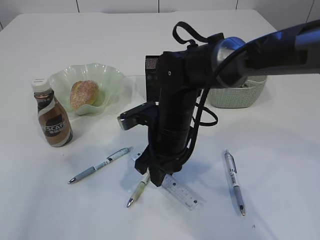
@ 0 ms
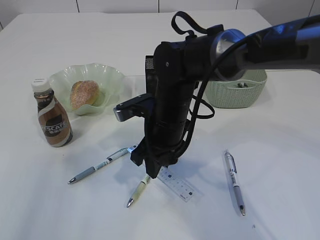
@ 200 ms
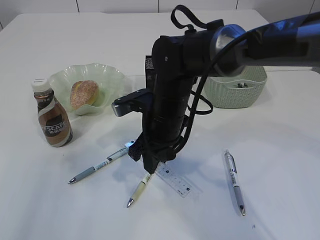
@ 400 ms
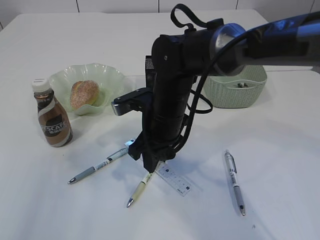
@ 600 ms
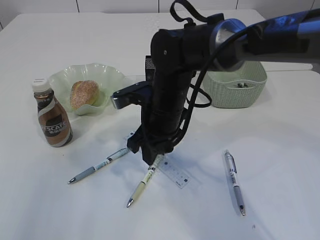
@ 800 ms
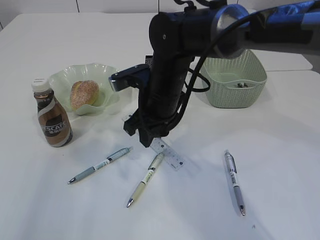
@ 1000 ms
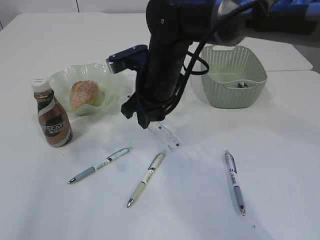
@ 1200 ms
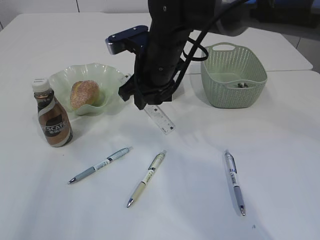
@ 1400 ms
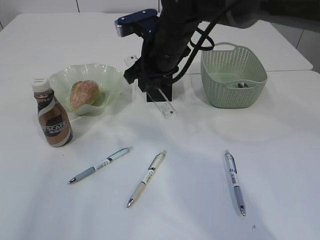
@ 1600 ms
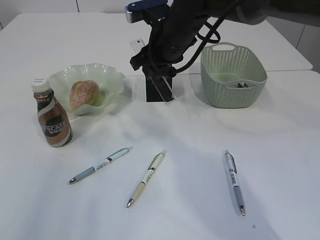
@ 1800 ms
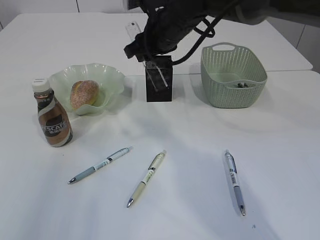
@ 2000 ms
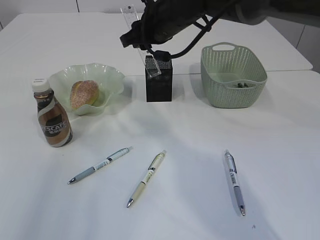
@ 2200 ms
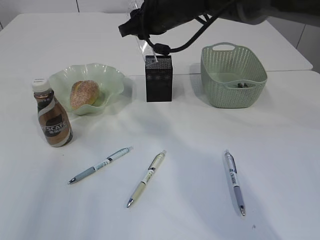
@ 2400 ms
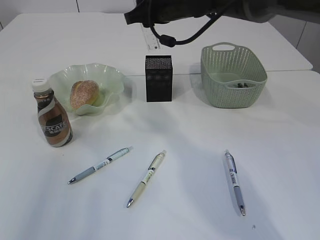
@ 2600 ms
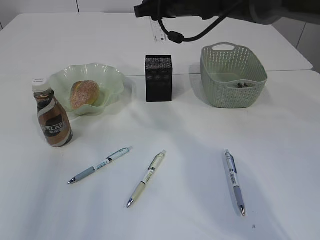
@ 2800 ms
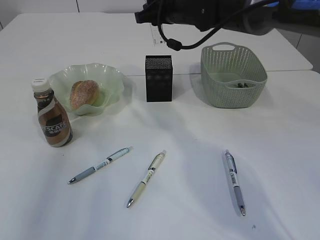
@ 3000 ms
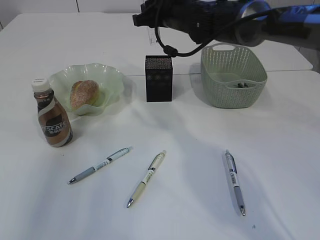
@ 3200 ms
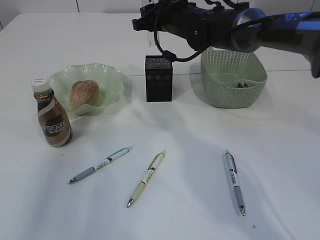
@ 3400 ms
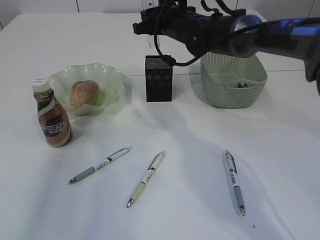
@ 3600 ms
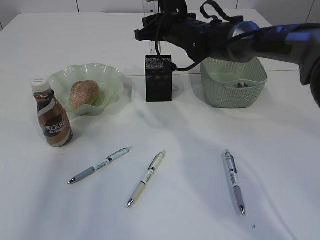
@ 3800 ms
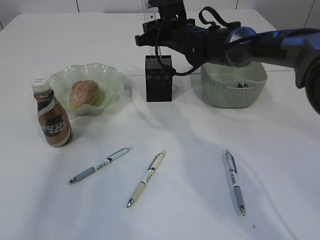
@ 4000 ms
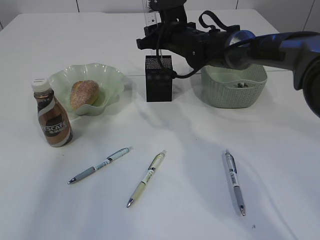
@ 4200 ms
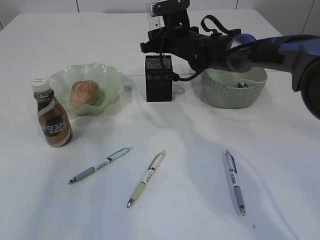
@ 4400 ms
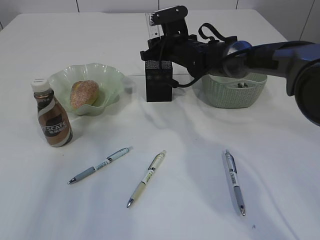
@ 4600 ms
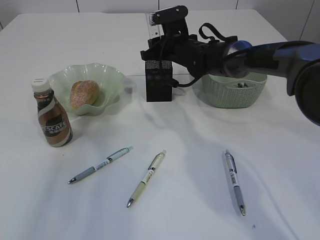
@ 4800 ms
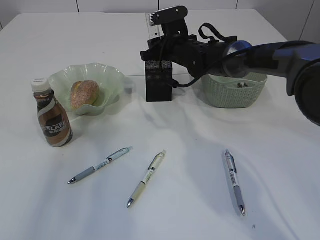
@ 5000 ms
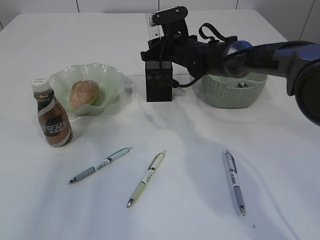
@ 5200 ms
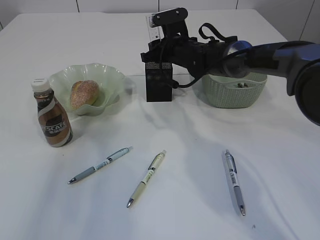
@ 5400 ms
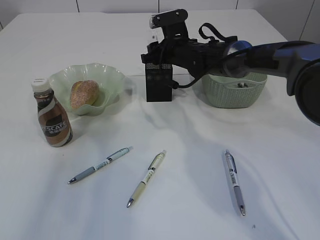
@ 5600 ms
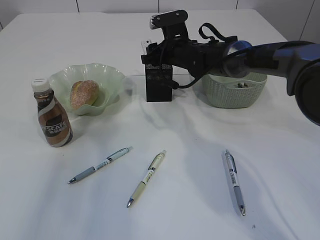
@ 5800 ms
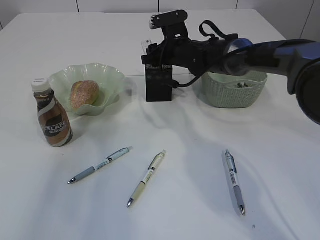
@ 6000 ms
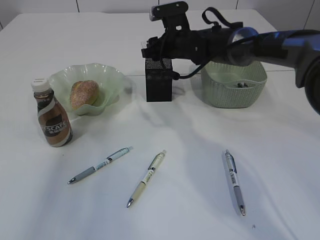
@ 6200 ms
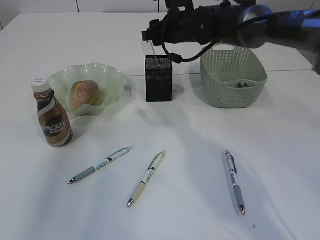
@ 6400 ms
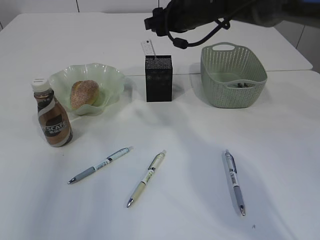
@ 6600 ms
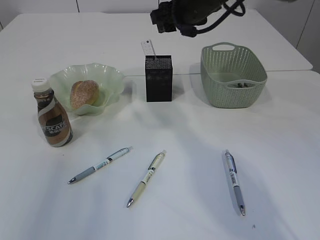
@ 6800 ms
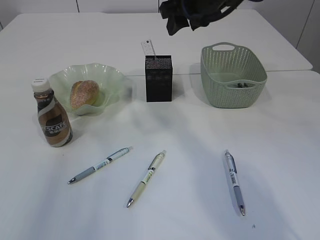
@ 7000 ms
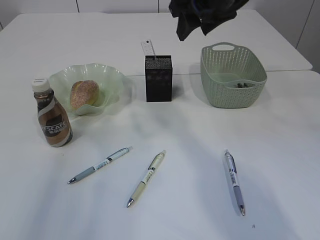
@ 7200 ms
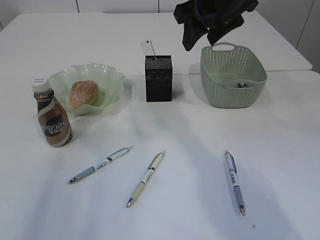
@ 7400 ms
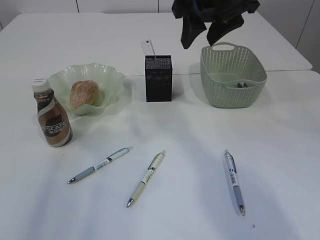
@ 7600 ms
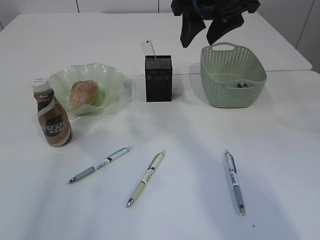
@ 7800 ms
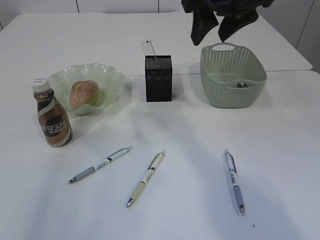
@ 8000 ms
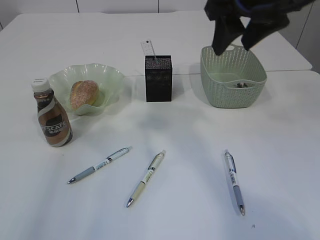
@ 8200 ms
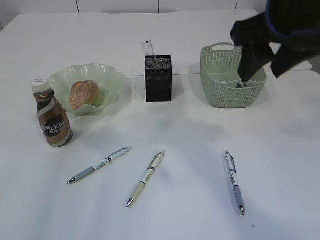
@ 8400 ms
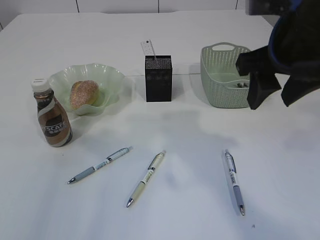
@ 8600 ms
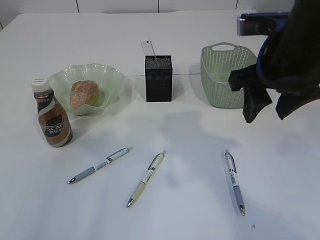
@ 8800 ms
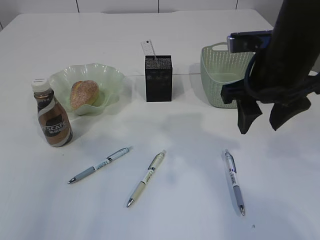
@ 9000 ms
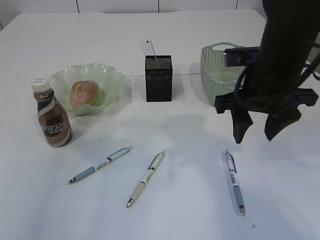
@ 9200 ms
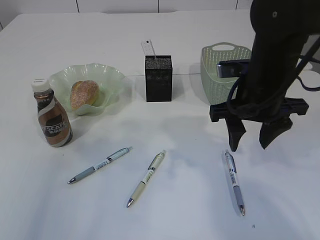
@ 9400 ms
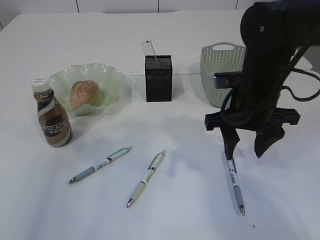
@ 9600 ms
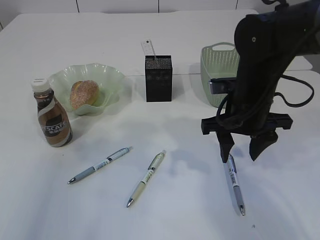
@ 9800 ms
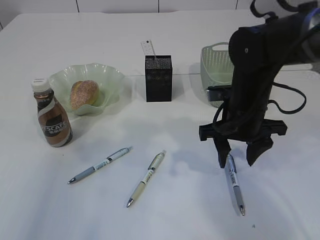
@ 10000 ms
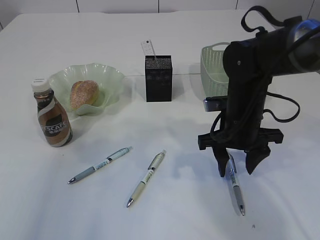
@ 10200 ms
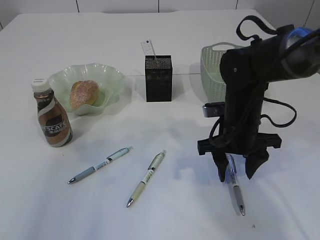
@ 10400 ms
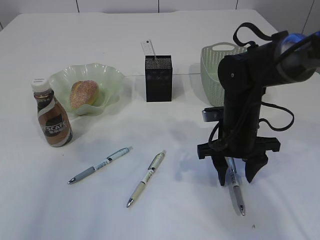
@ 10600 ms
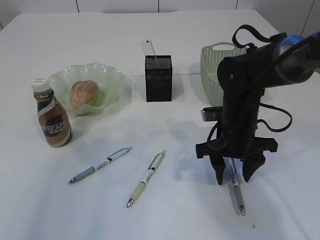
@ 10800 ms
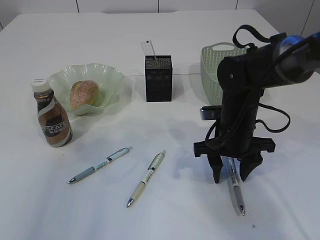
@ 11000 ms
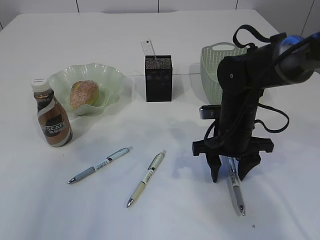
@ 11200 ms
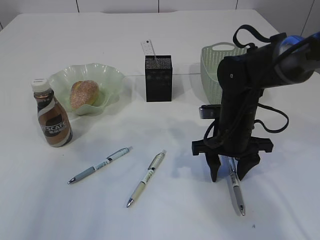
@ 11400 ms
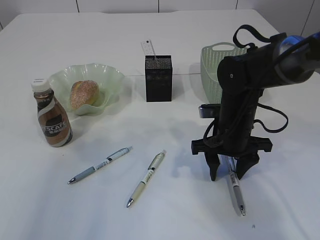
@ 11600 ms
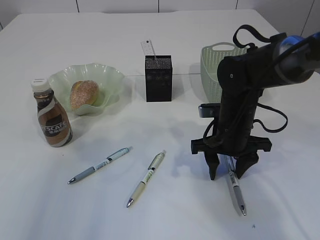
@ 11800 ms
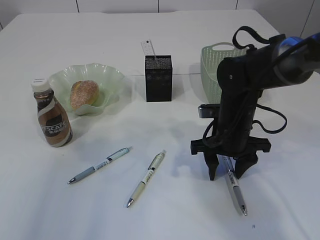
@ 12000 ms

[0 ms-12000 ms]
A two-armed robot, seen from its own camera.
Step, 1000 ms to 6600 ms: Place the ruler into the pen holder.
0 ms to 1600 ms: The right gripper moves upward and forward, about 15 cm.
1600 ms to 3000 ms: The right gripper shifts some 10 cm forward.
3000 ms to 4400 ms: The right gripper heads downward, covering approximately 10 cm.
4400 ms to 6000 ms: There are only small adjustments of the grippers.
6000 ms to 7600 ms: The right gripper goes some 20 cm upward and backward.
7600 ms to 9000 ms: The right gripper moves backward and downward, roughly 10 cm.
9000 ms to 10400 ms: The right gripper heads downward, covering approximately 15 cm.
10400 ms to 12000 ms: The grippers move only a little.

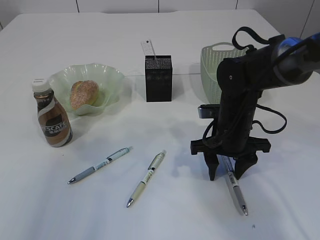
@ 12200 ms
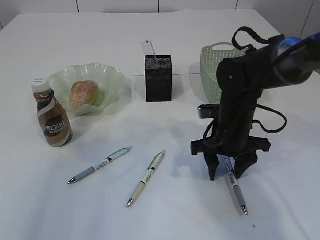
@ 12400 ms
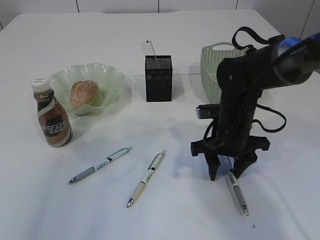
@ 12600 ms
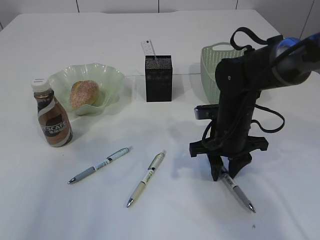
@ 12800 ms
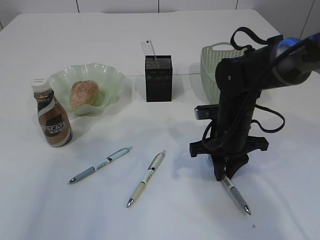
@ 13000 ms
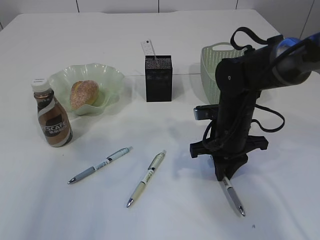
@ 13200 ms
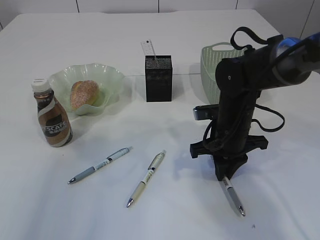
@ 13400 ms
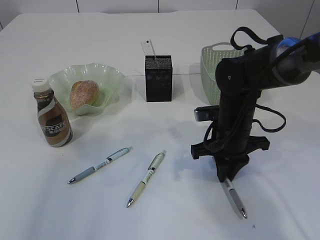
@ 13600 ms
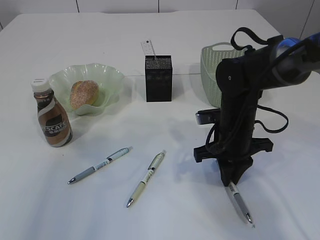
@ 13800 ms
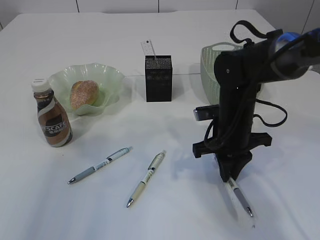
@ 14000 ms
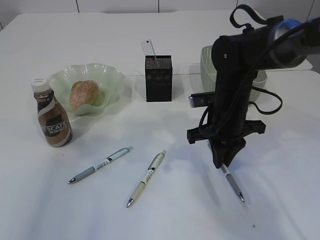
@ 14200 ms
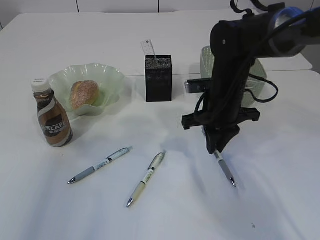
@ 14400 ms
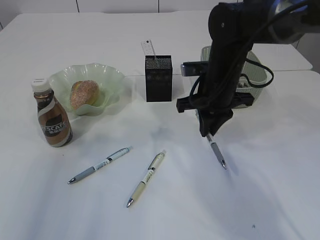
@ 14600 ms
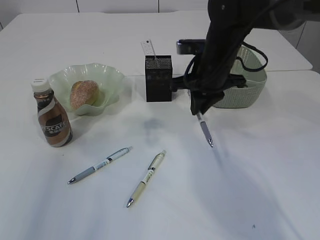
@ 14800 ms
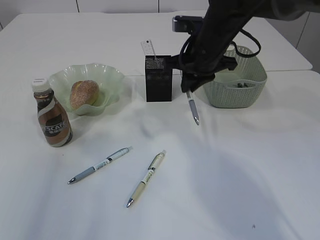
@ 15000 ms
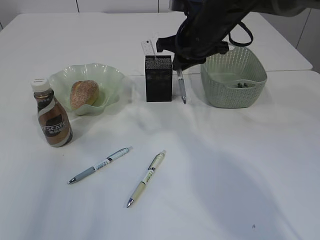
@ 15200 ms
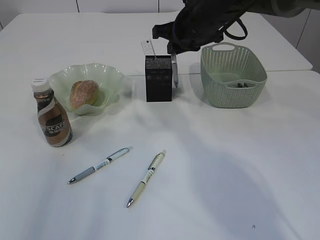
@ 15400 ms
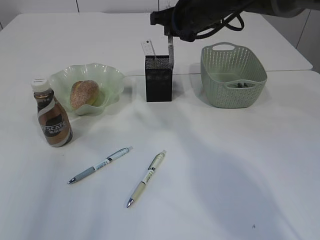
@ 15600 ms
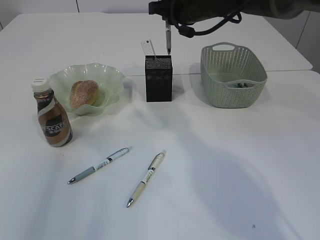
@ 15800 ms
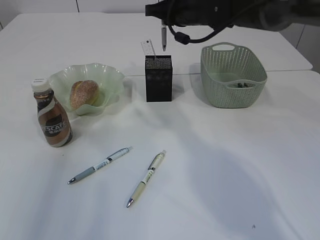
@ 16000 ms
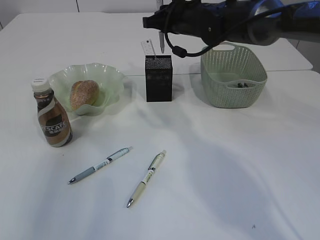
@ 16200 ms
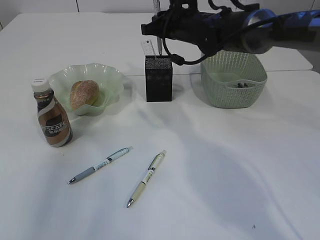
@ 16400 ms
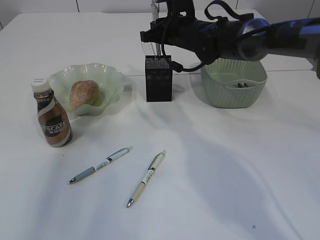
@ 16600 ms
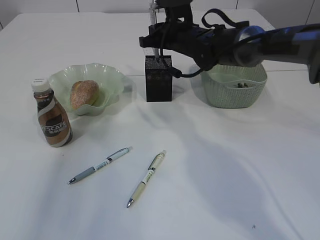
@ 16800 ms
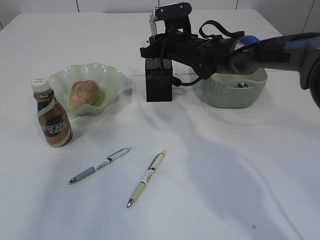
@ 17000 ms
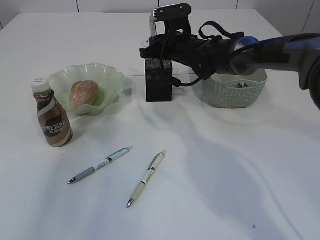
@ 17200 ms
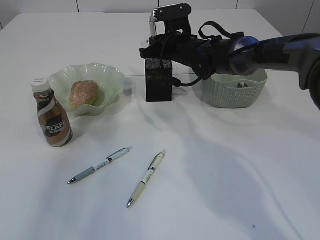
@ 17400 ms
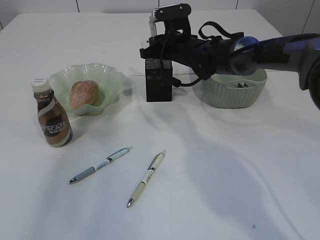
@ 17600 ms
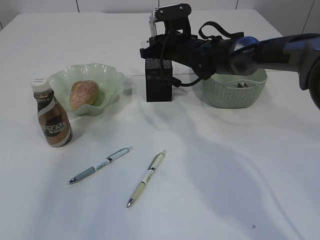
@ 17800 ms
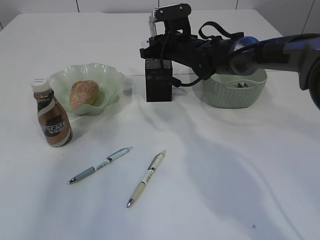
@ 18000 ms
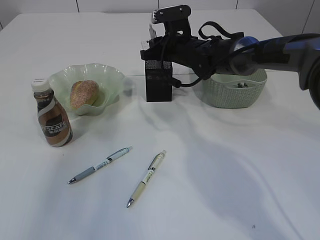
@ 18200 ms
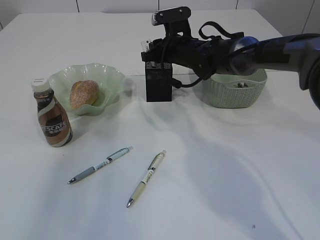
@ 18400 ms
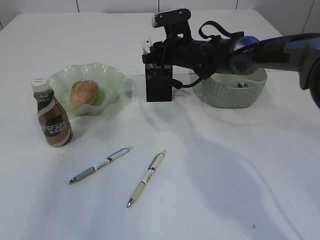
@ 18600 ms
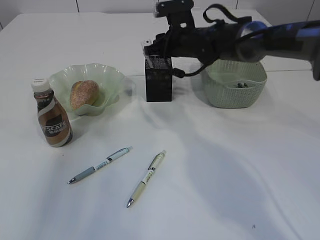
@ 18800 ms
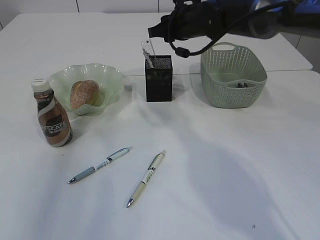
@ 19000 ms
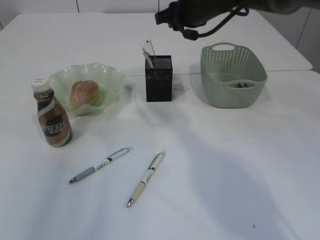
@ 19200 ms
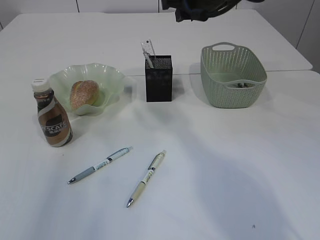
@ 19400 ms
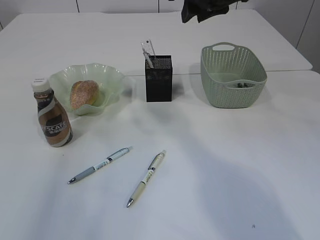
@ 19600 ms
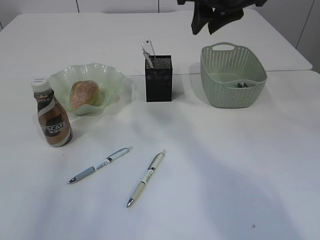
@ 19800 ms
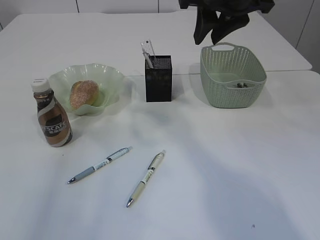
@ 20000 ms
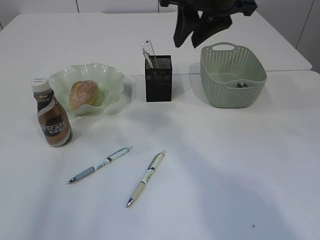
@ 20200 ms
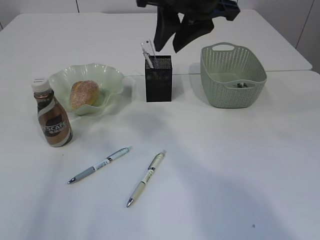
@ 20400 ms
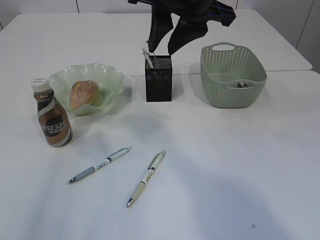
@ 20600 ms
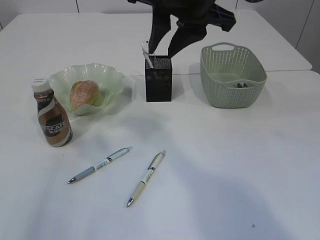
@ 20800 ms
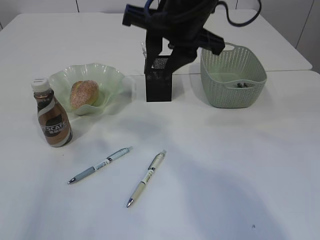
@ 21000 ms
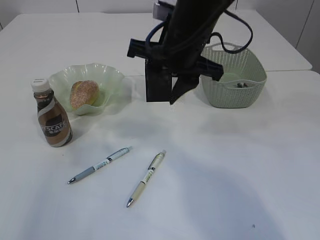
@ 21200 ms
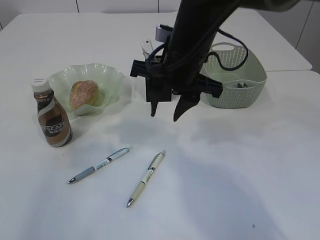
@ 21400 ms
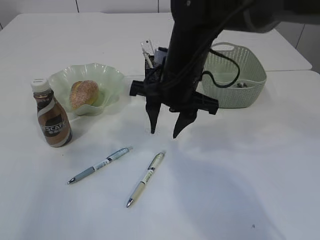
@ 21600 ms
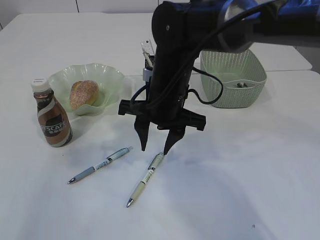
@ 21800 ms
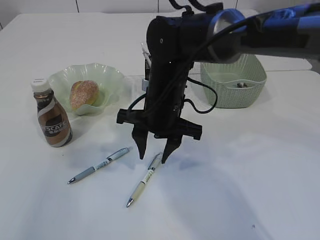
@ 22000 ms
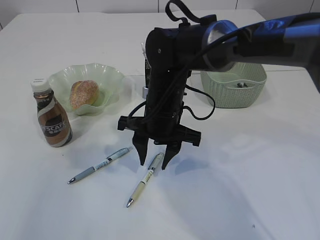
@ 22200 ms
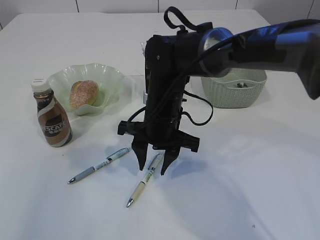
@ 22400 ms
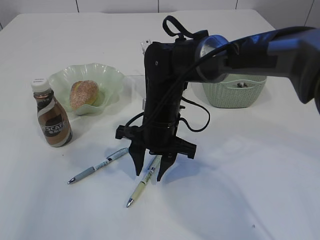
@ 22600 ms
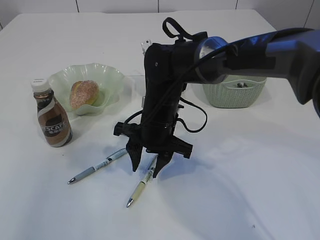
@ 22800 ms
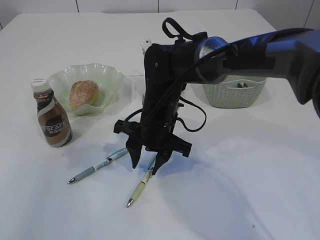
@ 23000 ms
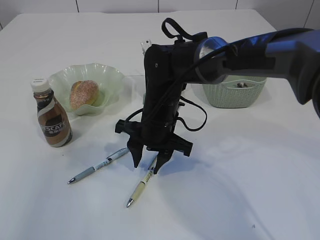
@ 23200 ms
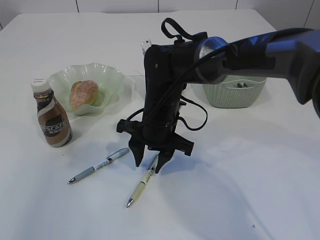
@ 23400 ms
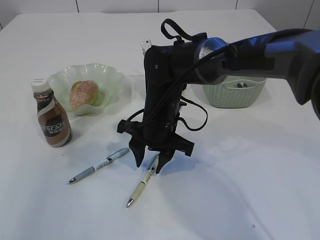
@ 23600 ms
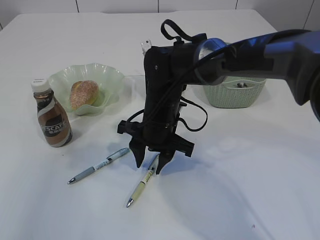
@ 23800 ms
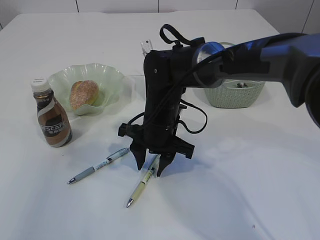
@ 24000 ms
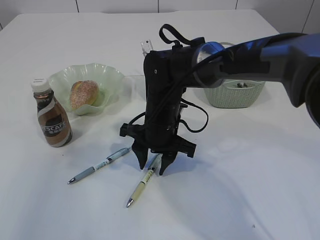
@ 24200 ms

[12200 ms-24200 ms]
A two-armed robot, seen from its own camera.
Step, 12200 ms to 14400 ms: Pick up the pen with right arm.
Step, 14600 ms to 19200 ms: Place the pen into the pen holder.
12200 ms to 13800 ms: The right gripper closes its fingers.
13800 ms to 15200 ms: The right gripper travels upward and forward by approximately 15 cm.
15200 ms to 16600 ms: The right gripper goes roughly 5 cm forward.
16600 ms to 18200 ms: There are only small adjustments of the grippers.
18200 ms to 19800 ms: The right gripper travels upward and backward by about 20 cm.
19800 ms to 21200 ms: The right gripper travels to the left and downward by some 10 cm.
21200 ms to 22600 ms: The right gripper travels downward by some 15 cm.
22600 ms to 24200 ms: The grippers stay close to where they were, moving slightly.
